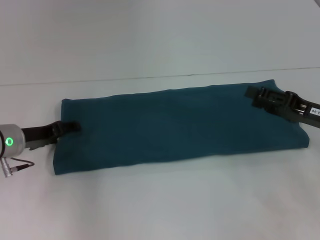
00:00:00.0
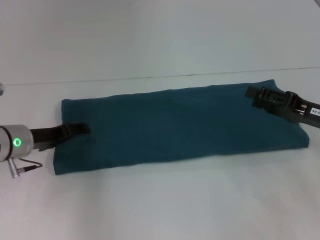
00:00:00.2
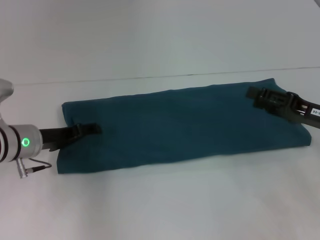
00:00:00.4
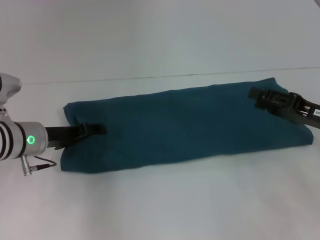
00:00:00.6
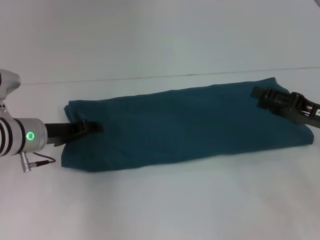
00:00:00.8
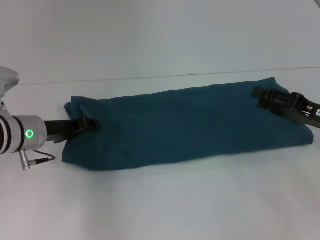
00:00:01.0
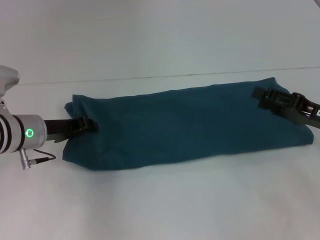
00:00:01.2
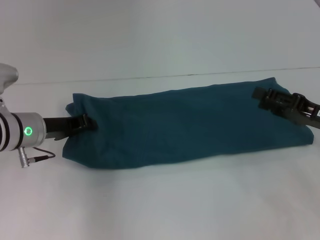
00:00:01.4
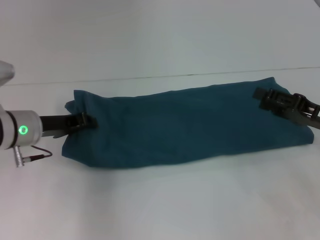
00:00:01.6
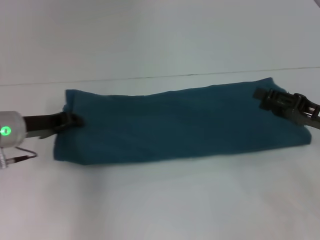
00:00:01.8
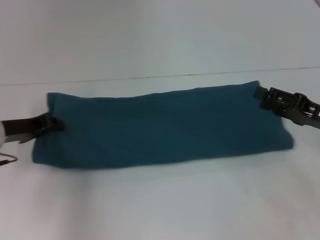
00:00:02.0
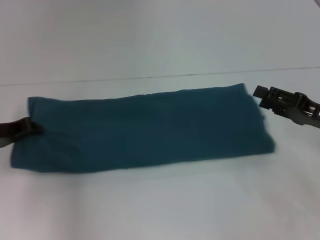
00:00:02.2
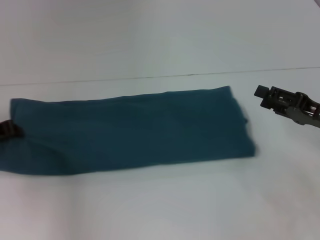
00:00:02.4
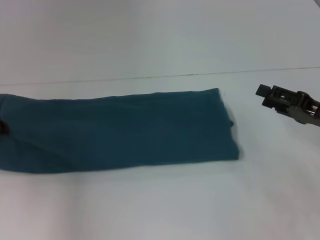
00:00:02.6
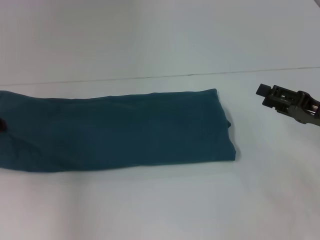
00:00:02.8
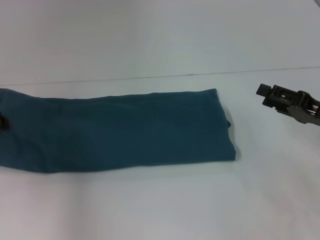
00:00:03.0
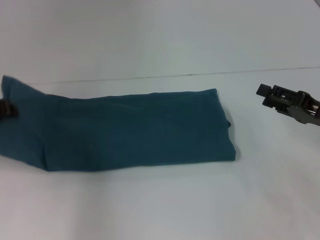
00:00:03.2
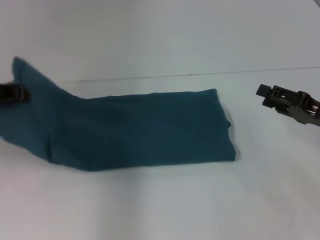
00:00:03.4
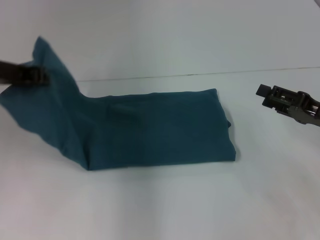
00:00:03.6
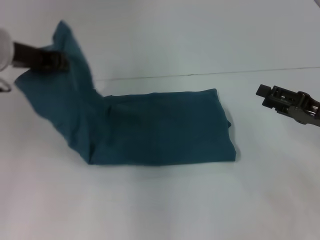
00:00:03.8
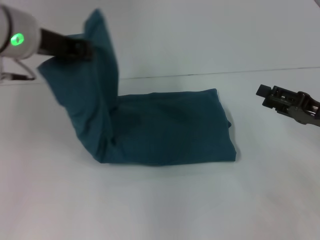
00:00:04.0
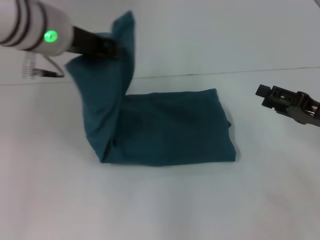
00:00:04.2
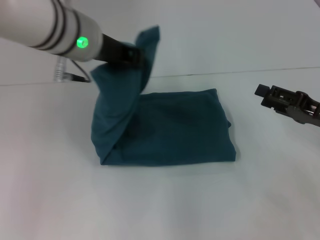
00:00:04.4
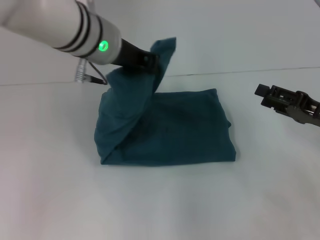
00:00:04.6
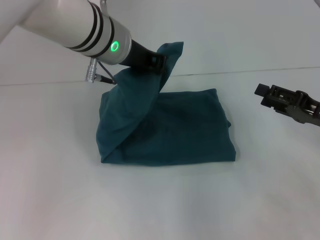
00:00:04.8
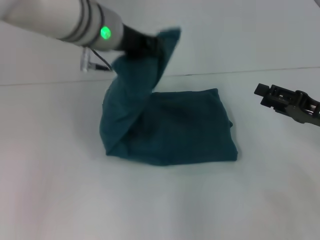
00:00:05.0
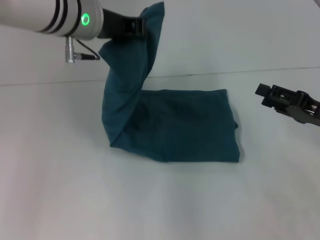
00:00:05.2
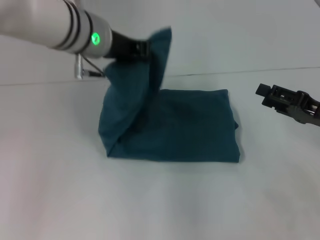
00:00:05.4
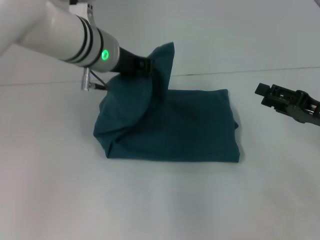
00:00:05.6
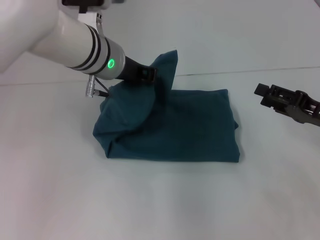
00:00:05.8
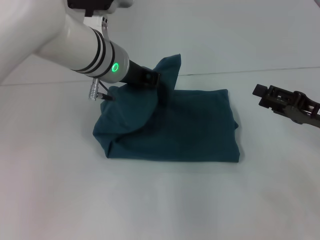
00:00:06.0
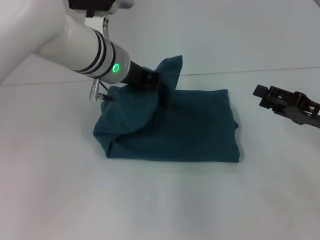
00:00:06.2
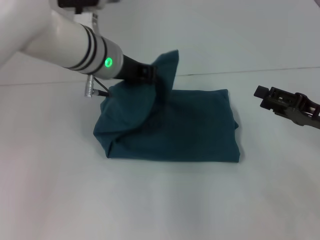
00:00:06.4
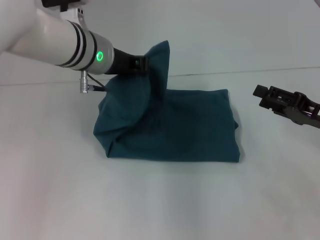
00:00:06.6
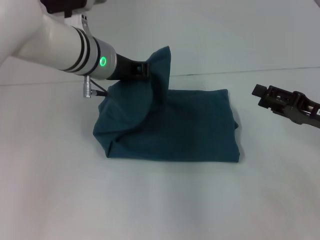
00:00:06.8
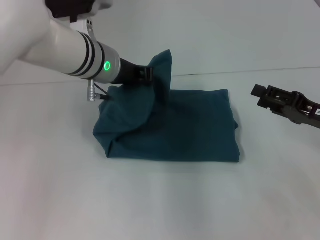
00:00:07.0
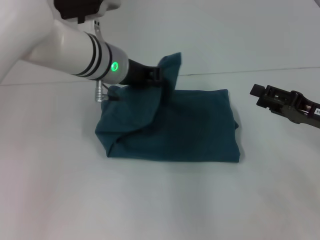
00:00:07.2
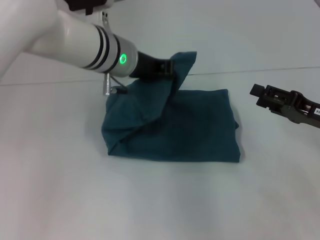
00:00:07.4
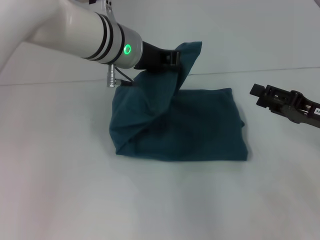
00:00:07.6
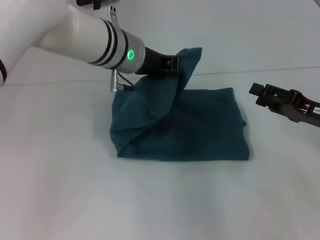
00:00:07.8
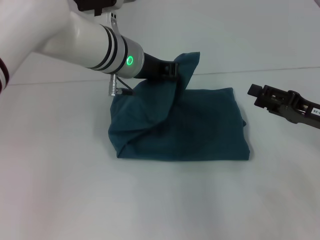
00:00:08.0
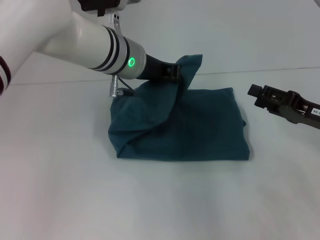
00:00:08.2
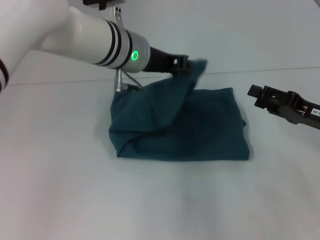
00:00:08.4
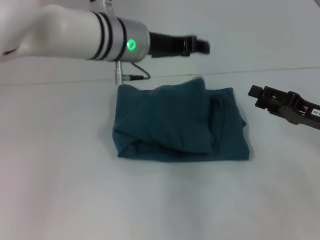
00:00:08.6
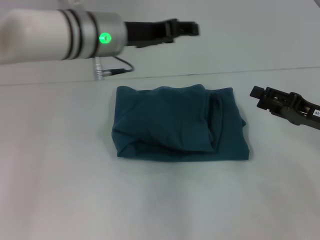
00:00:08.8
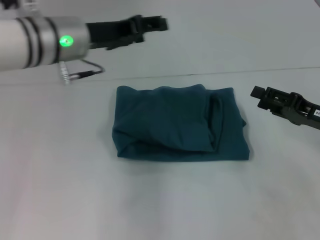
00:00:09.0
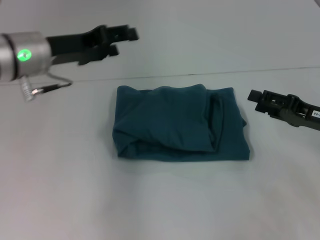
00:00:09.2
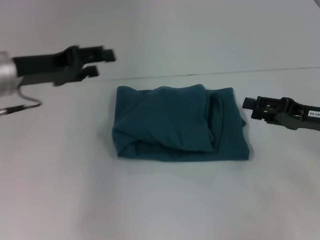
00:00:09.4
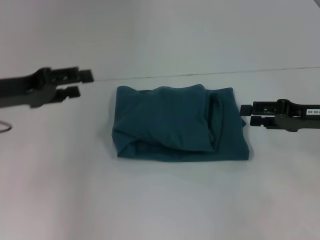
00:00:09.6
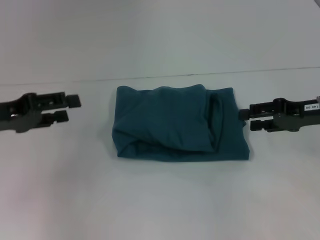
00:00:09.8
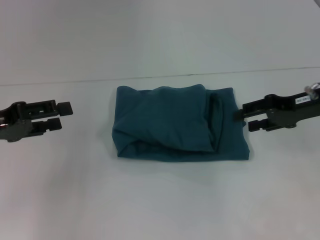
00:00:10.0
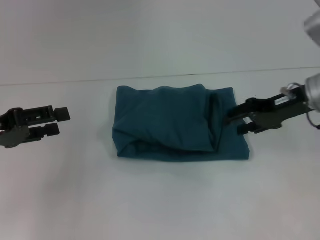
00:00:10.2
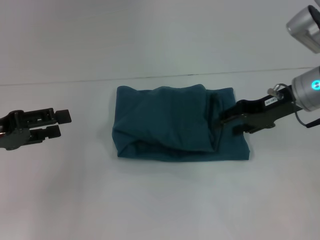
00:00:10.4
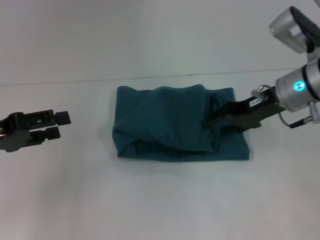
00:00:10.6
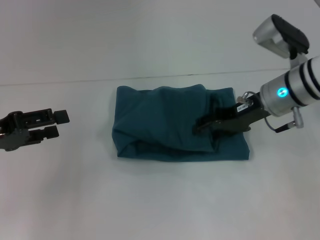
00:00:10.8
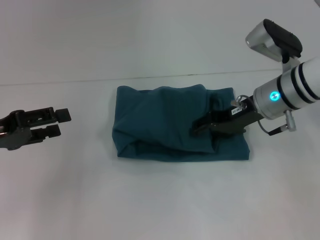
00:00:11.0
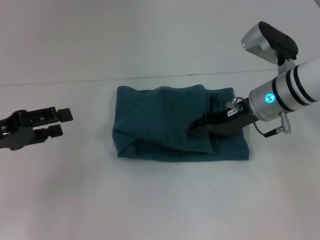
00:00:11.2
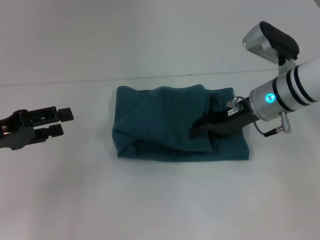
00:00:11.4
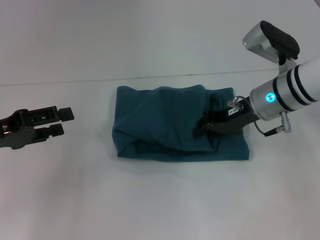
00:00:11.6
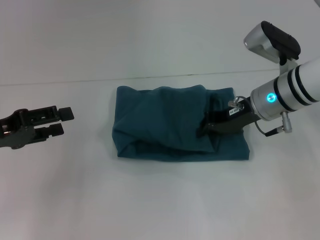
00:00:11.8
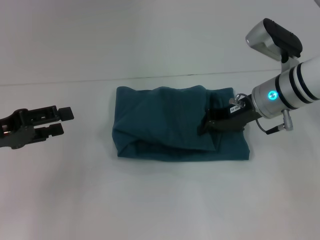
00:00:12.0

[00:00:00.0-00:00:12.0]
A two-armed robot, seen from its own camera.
Step, 00:00:00.0 to 00:00:08.6: Fold the clothes to the left.
00:00:00.0 to 00:00:01.6: The left gripper closes.
00:00:01.6 to 00:00:03.0: The left gripper heads to the left, covering some 10 cm.
00:00:03.0 to 00:00:04.4: The left gripper goes some 25 cm to the right and upward.
00:00:04.4 to 00:00:06.0: The left gripper heads downward, covering some 5 cm.
00:00:06.0 to 00:00:07.6: The grippers stay close to where they were, moving slightly.
00:00:07.6 to 00:00:09.0: The left gripper is displaced to the left by approximately 10 cm, and opens up.
00:00:09.0 to 00:00:10.4: The right gripper shifts some 15 cm forward, to the left and upward. Meanwhile the left gripper is displaced to the left and backward by approximately 20 cm.
00:00:10.4 to 00:00:12.0: The right gripper ends up roughly 5 cm from where it was, and closes.

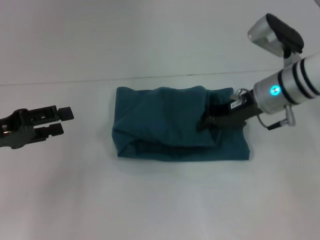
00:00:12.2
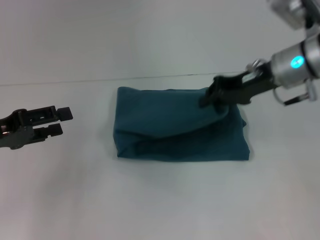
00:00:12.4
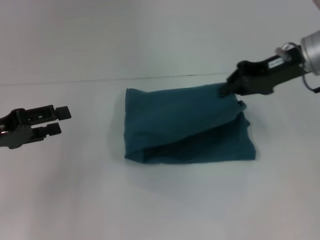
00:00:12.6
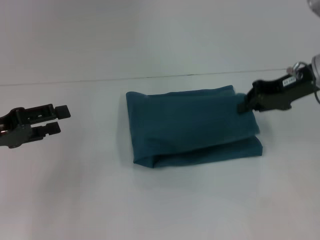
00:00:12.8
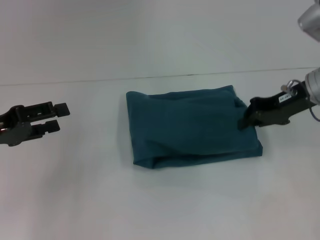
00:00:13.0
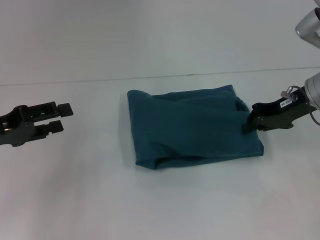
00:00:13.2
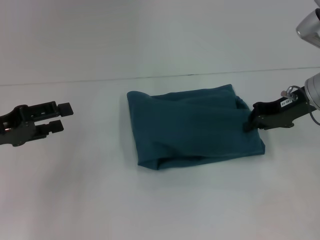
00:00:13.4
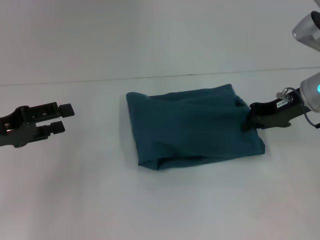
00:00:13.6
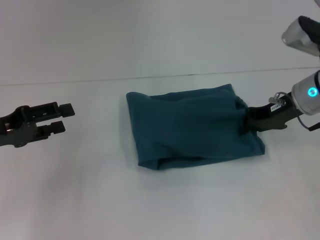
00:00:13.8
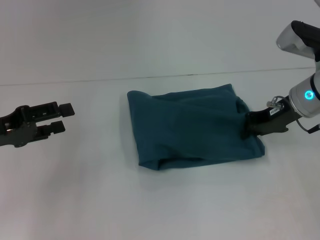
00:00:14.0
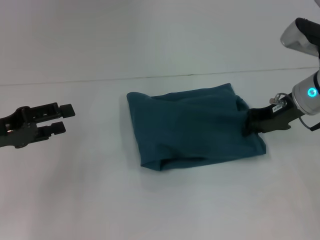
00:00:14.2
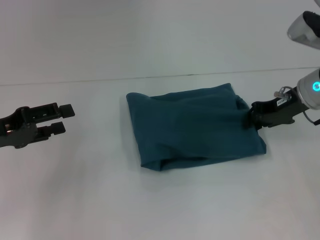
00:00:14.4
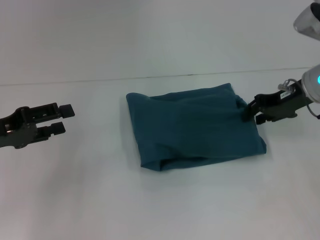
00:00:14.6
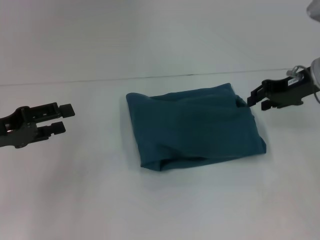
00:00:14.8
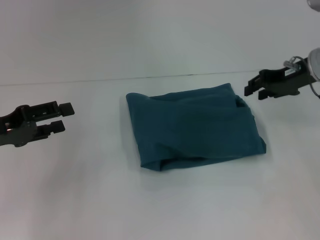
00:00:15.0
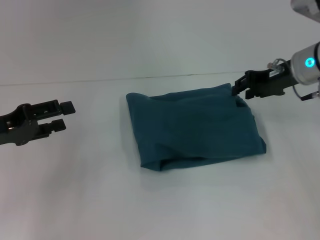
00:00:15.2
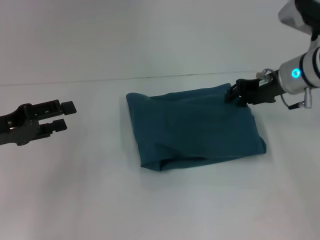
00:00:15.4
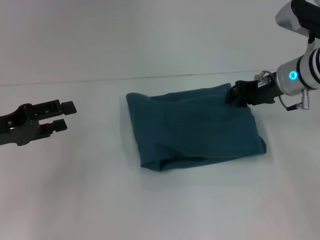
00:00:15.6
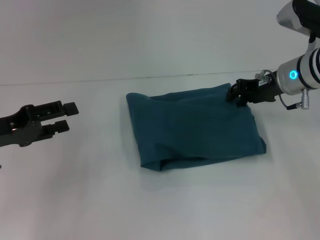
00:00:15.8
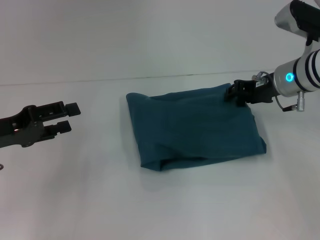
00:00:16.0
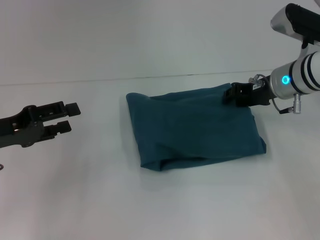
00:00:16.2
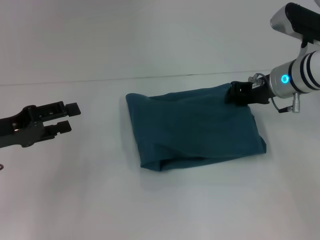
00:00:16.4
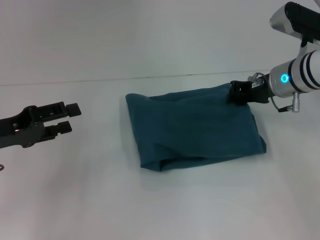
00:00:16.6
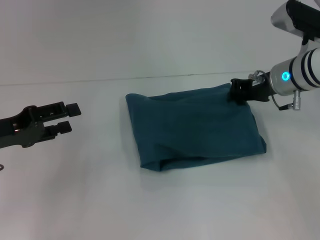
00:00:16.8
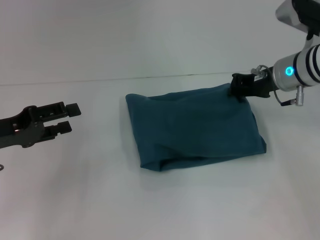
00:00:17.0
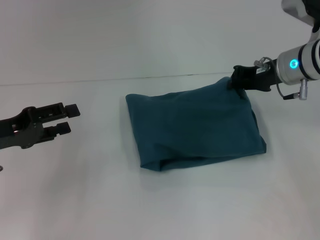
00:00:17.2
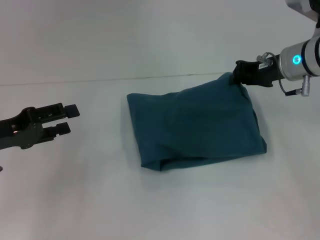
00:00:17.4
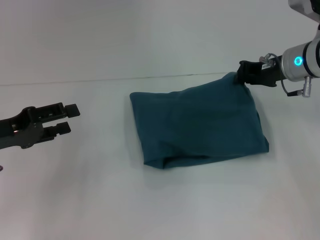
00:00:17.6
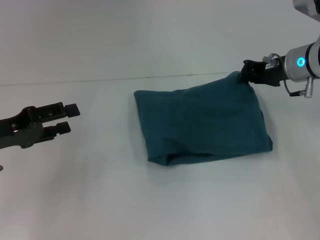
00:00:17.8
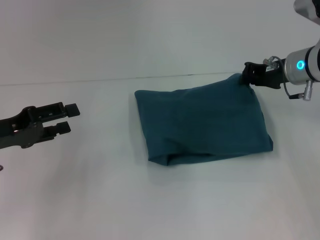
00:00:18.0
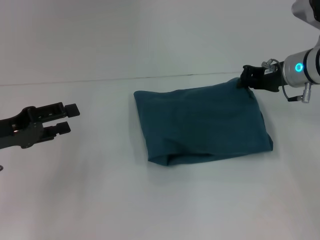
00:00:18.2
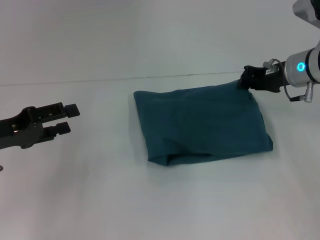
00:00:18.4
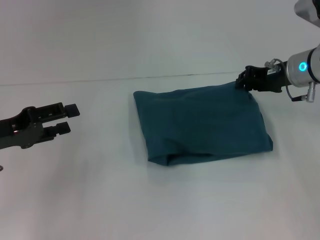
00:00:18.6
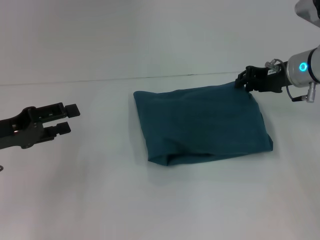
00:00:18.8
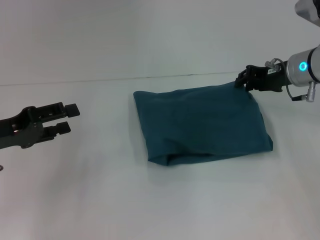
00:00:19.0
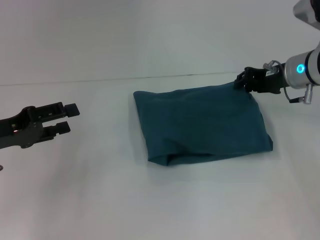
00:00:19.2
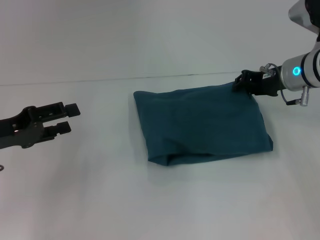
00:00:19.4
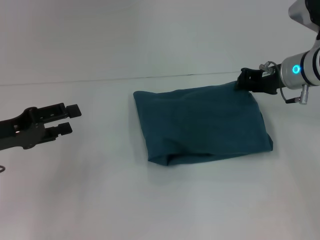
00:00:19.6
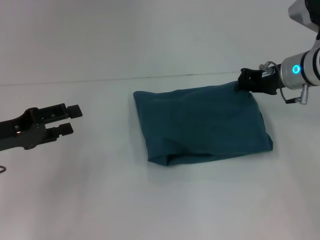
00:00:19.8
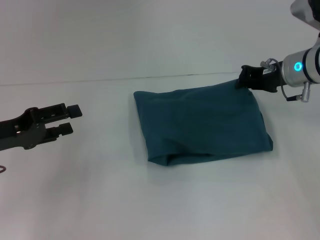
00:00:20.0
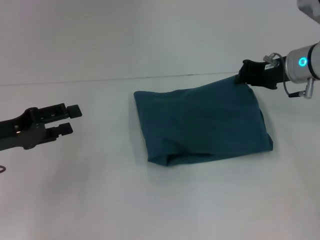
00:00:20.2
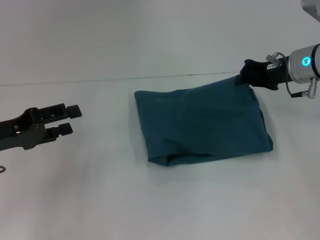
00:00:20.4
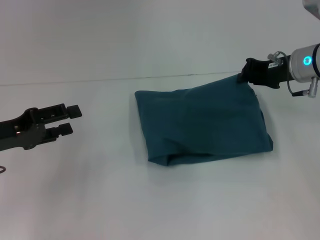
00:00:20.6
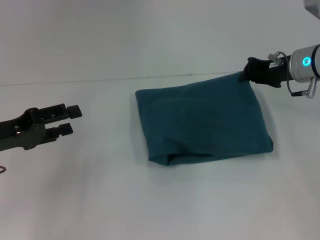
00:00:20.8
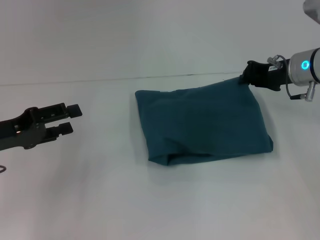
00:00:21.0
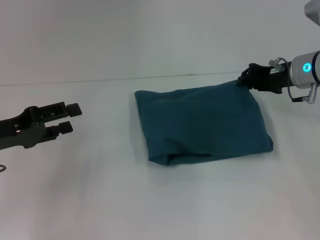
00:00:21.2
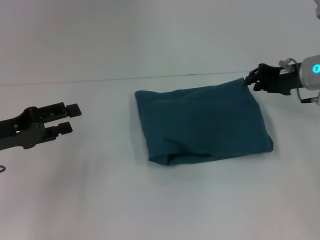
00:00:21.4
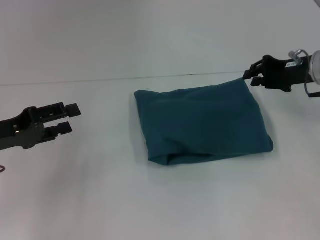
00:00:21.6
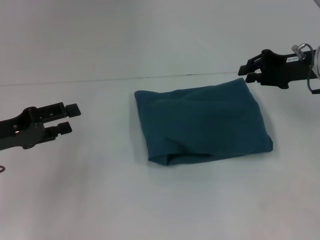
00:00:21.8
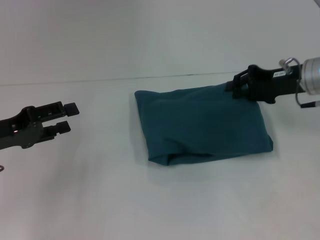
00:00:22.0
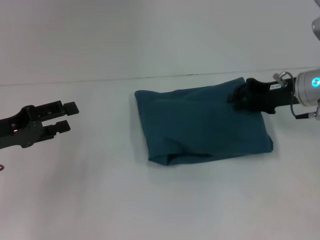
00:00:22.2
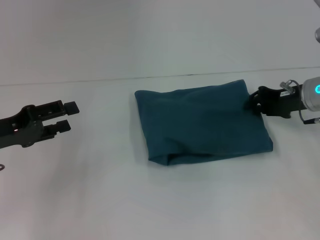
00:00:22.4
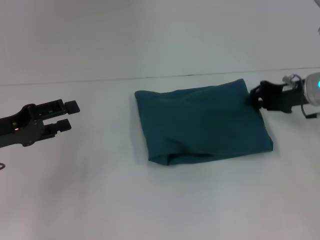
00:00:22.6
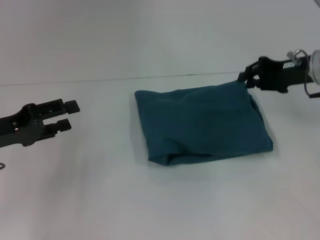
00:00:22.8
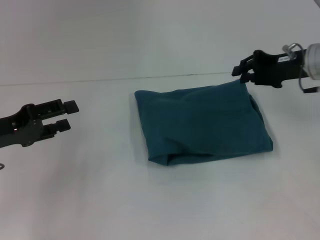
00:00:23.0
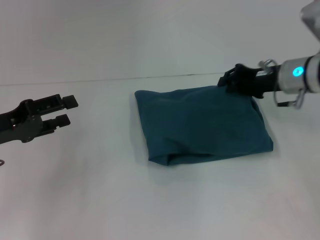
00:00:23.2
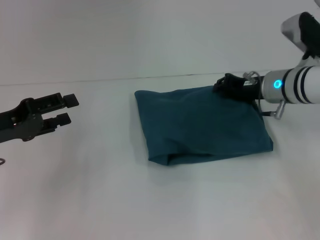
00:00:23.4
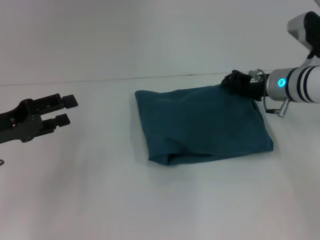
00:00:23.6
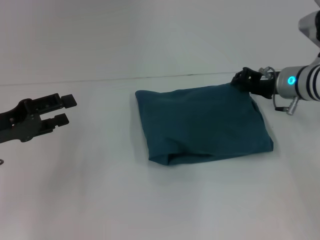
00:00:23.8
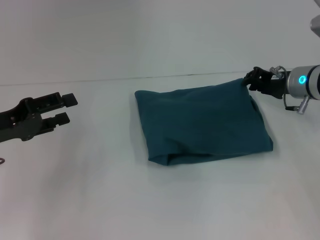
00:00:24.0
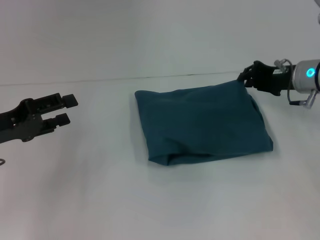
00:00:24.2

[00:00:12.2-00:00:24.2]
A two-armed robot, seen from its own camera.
00:00:12.2 to 00:00:13.8: The right gripper heads to the right, covering roughly 5 cm.
00:00:13.8 to 00:00:16.6: There are only small adjustments of the grippers.
00:00:16.6 to 00:00:18.2: The grippers stay close to where they were, moving slightly.
00:00:18.2 to 00:00:19.8: Both grippers stay put.
00:00:19.8 to 00:00:21.2: The grippers make only small movements.
00:00:21.2 to 00:00:22.6: The grippers stay close to where they were, moving slightly.
